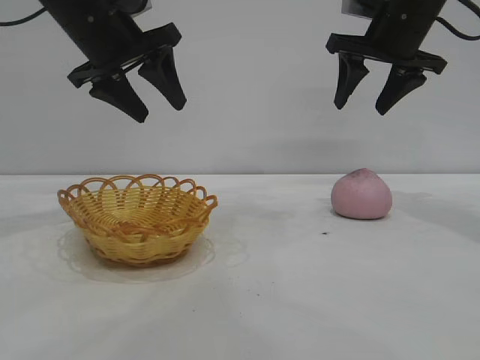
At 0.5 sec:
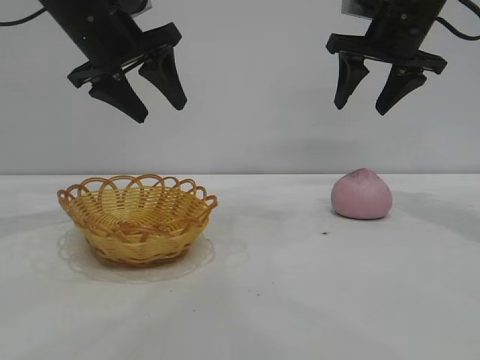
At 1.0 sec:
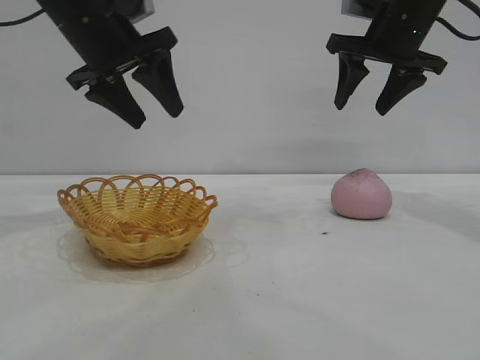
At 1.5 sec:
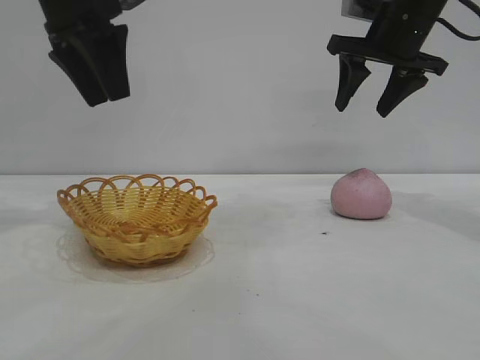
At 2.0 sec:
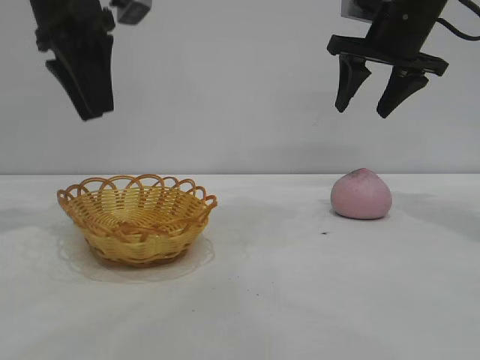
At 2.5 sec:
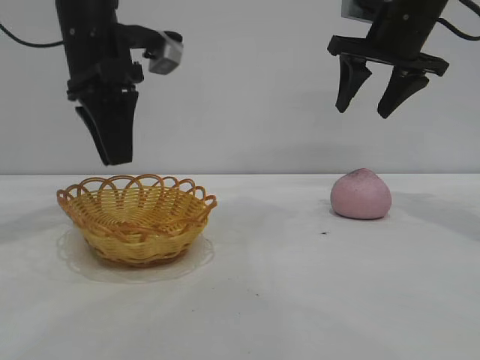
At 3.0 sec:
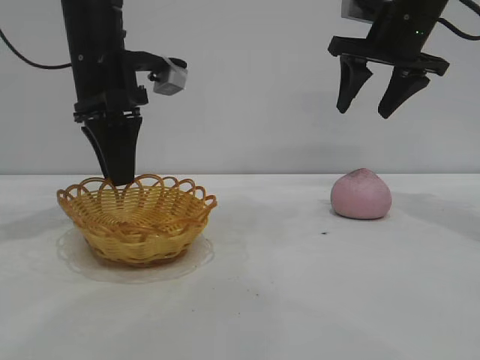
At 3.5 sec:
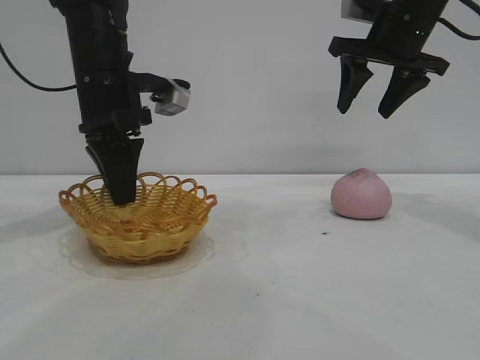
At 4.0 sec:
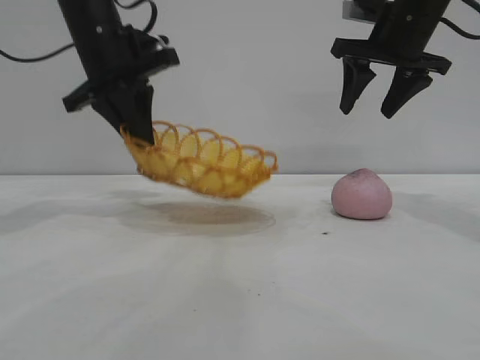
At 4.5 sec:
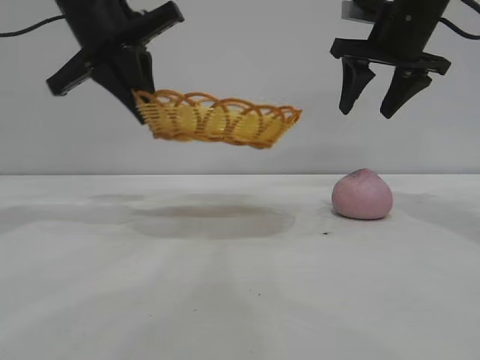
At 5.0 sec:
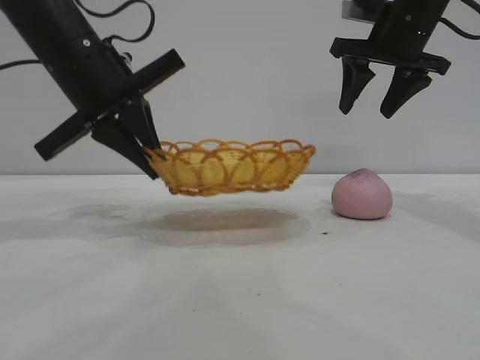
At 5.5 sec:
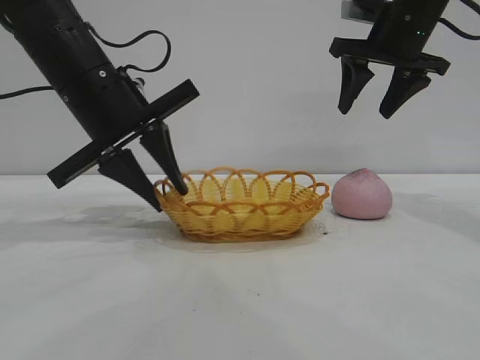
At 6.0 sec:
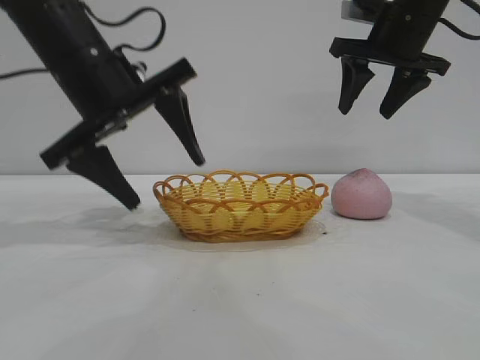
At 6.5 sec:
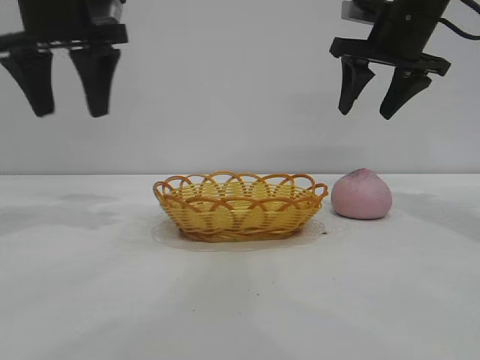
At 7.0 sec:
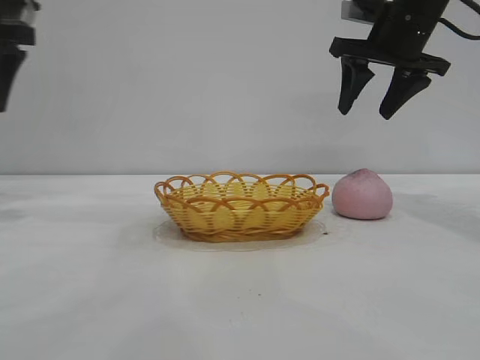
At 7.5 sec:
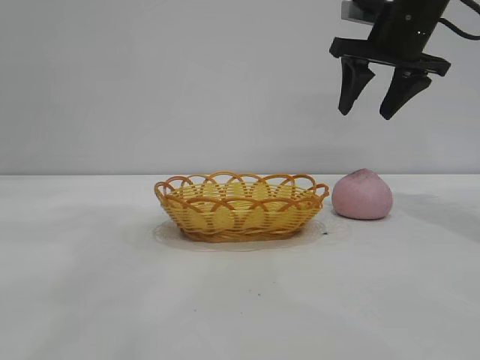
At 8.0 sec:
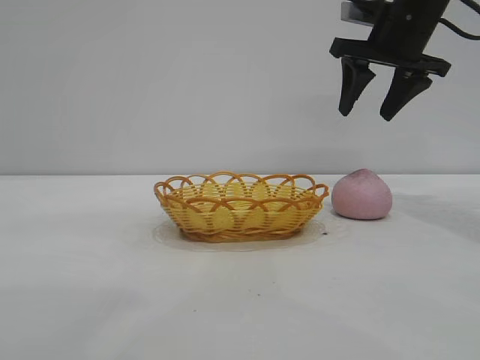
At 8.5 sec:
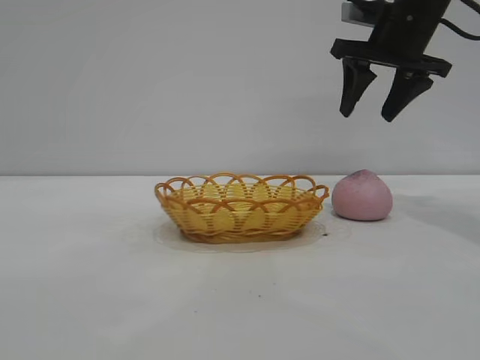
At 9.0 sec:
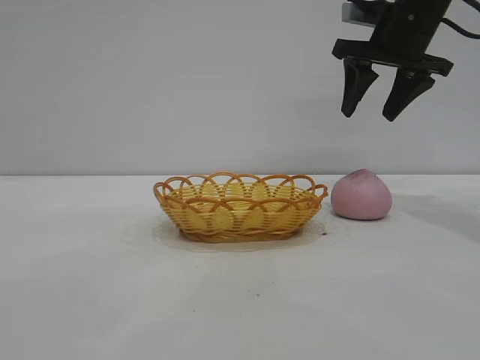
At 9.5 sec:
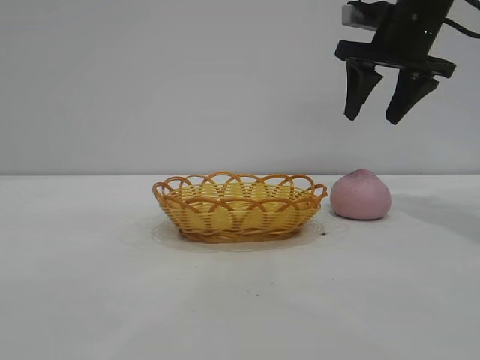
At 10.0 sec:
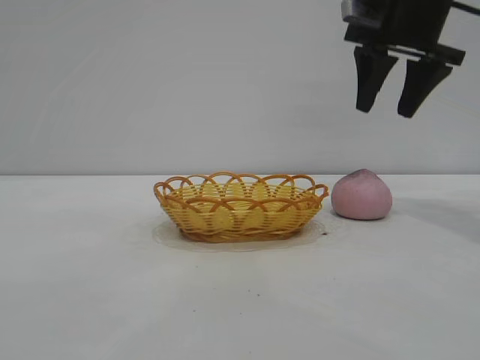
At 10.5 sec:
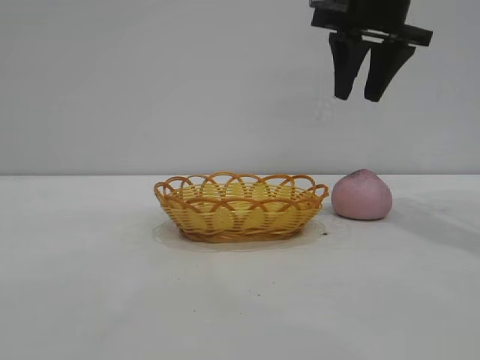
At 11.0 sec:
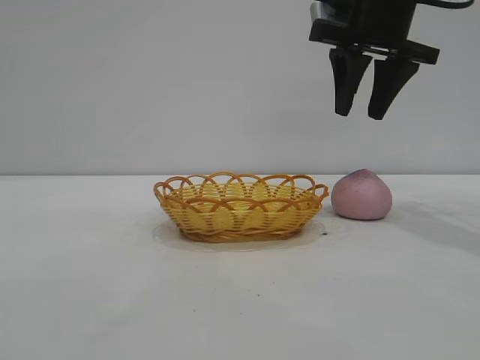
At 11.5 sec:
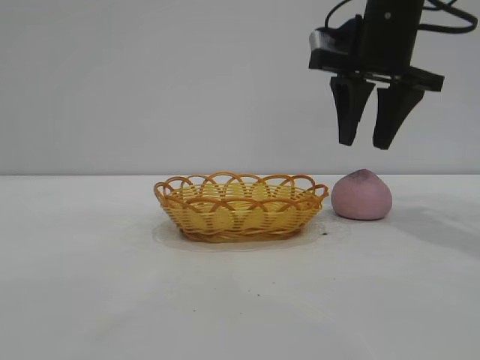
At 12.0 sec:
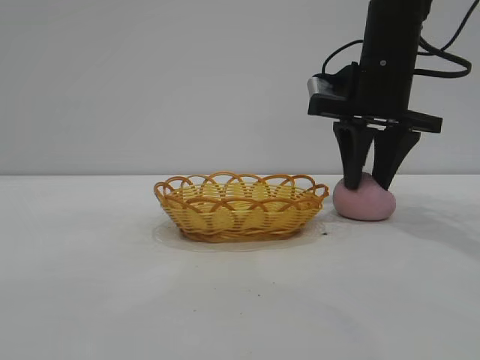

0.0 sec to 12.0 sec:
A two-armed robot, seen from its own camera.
Task of the whole recording: pick up the peach and put it into the basket.
Step, 0.0 sec to 6.0 sec: Move the basket to the center of view.

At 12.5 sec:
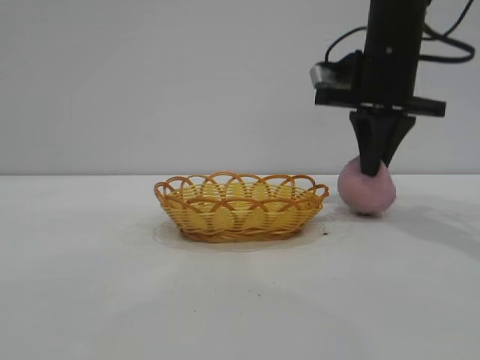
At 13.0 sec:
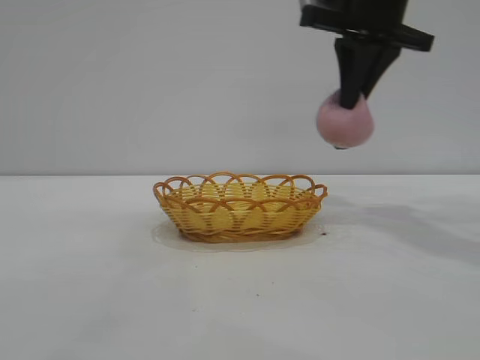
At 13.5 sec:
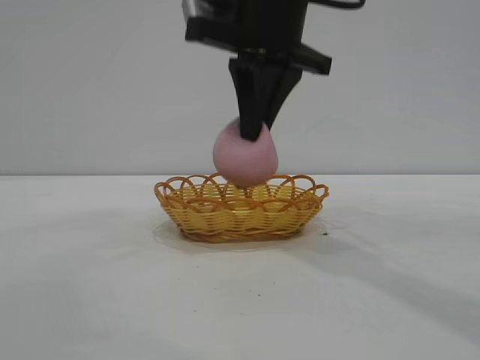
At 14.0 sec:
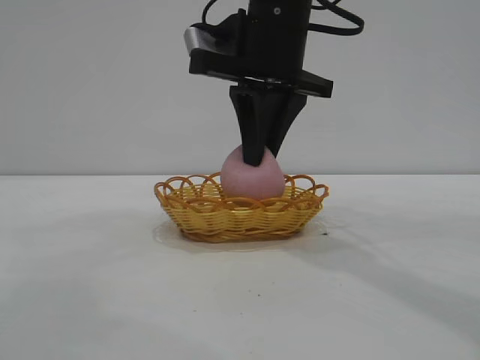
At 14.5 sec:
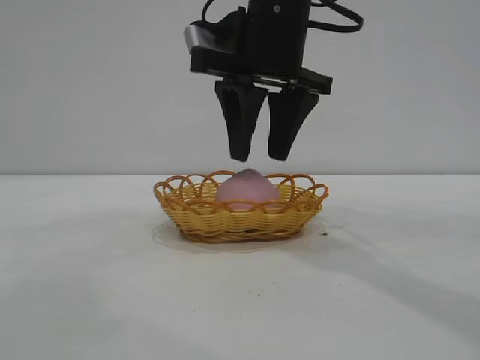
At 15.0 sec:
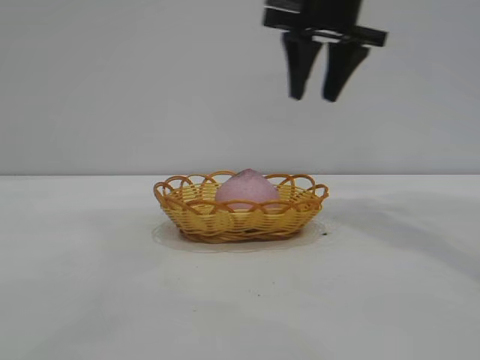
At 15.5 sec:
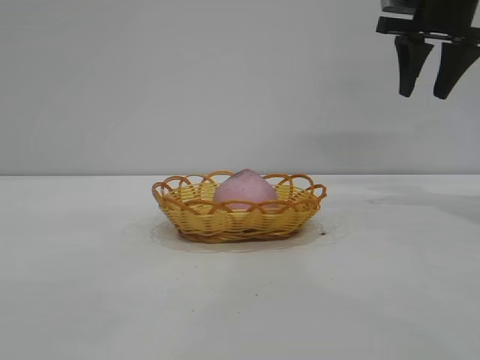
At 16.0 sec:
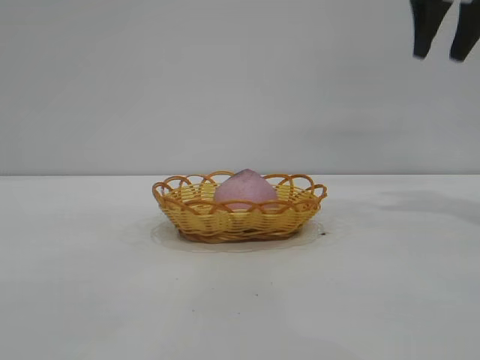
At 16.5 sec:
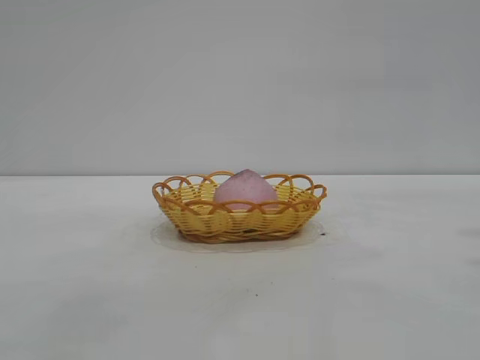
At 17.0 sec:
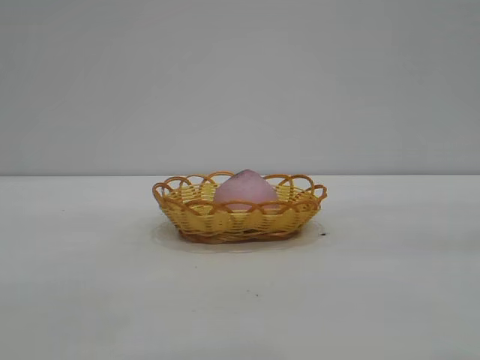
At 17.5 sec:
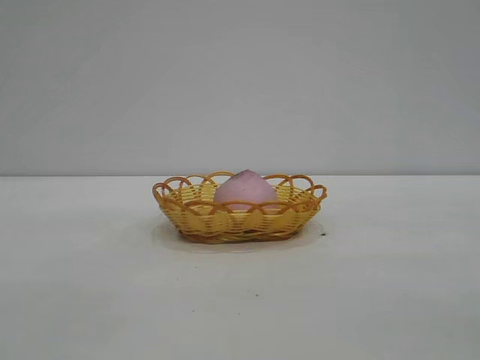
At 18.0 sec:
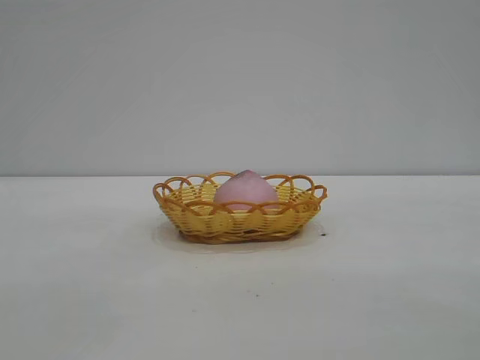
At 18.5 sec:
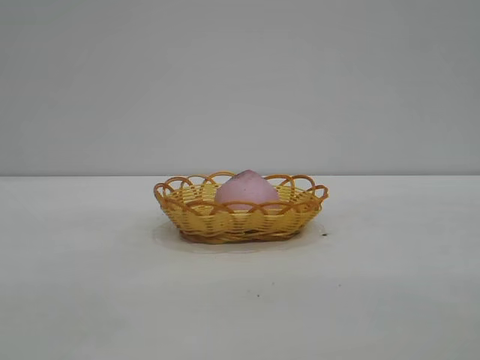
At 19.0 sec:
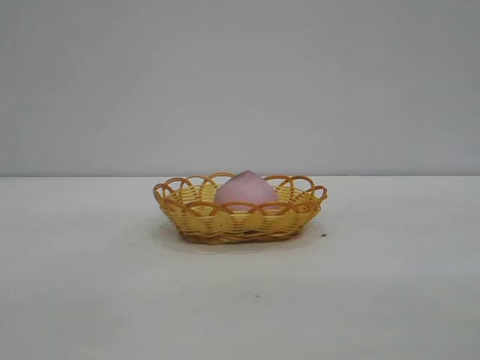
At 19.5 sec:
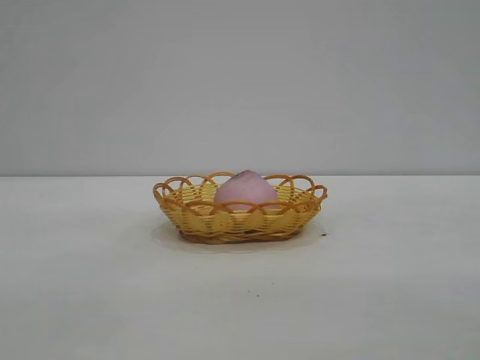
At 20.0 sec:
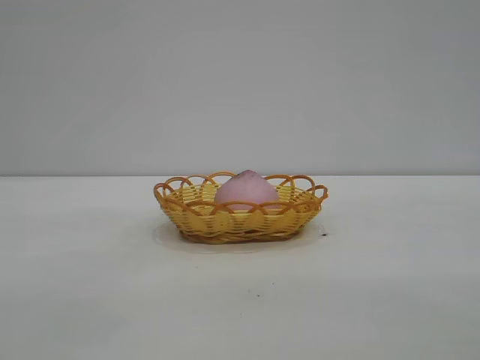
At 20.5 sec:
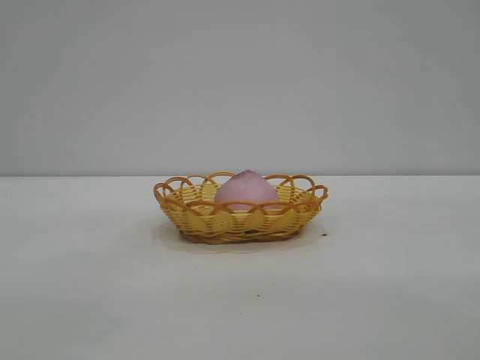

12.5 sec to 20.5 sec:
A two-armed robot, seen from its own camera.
Task of the whole recording: pick up the peach and put it into the basket.
Step, 13.0 sec to 14.5 sec: place the peach into the basket.

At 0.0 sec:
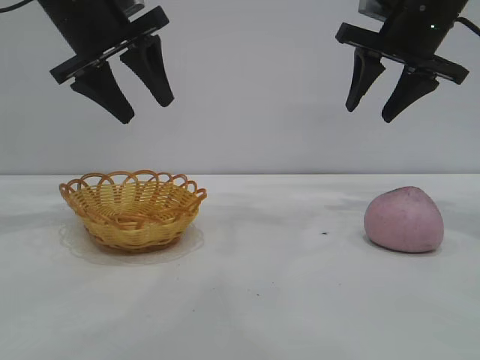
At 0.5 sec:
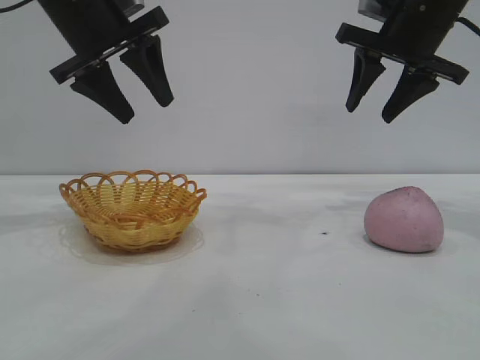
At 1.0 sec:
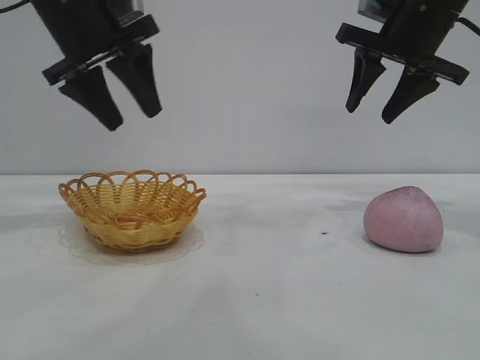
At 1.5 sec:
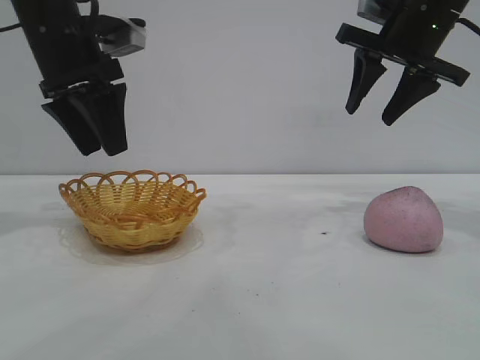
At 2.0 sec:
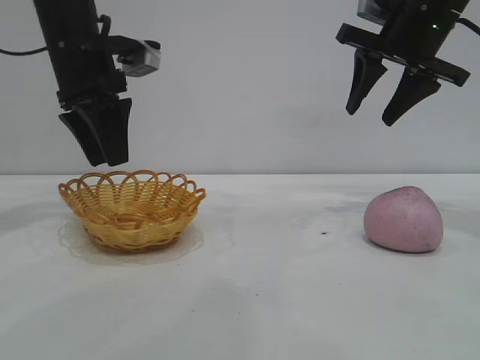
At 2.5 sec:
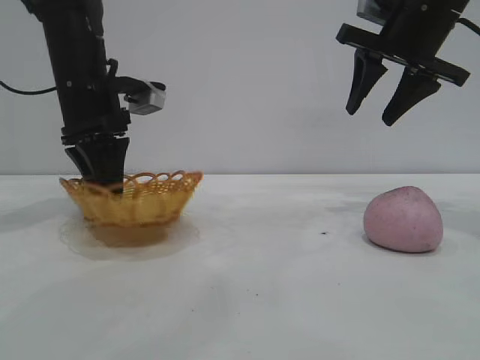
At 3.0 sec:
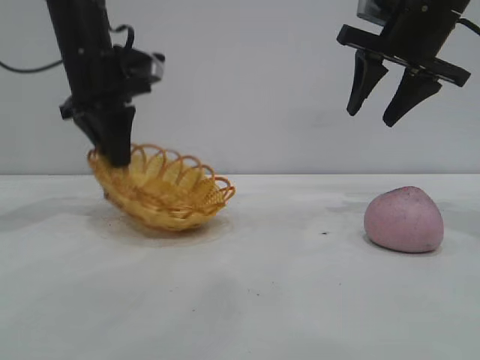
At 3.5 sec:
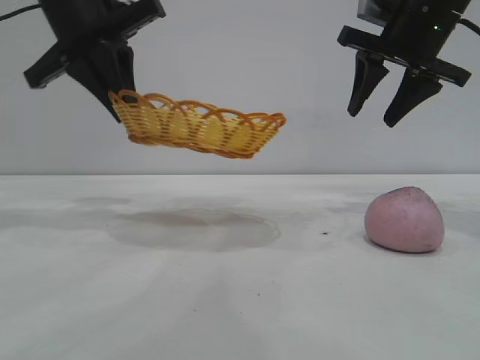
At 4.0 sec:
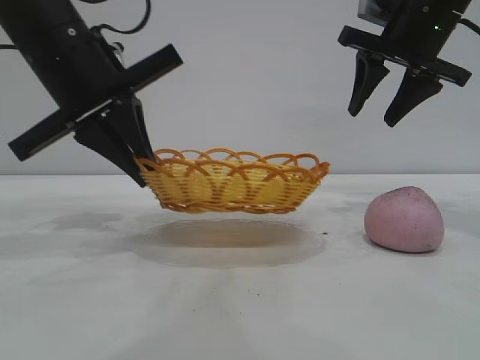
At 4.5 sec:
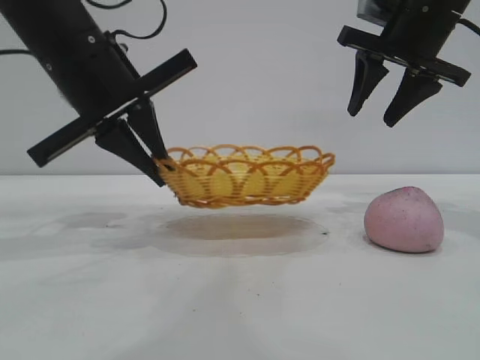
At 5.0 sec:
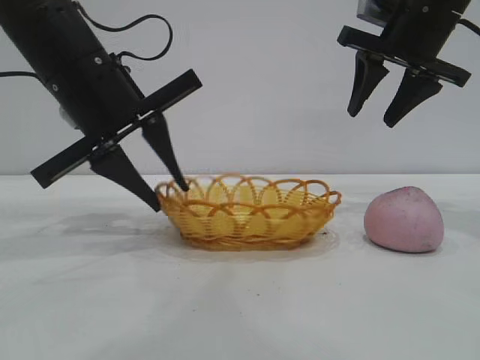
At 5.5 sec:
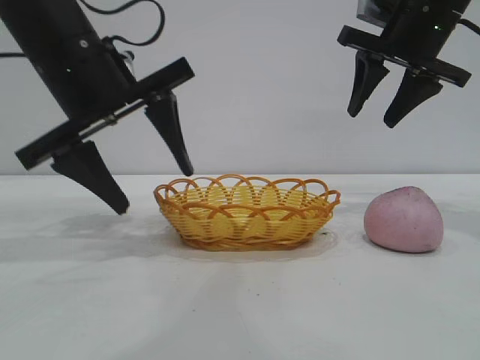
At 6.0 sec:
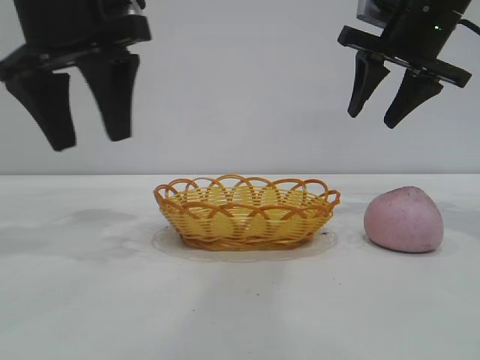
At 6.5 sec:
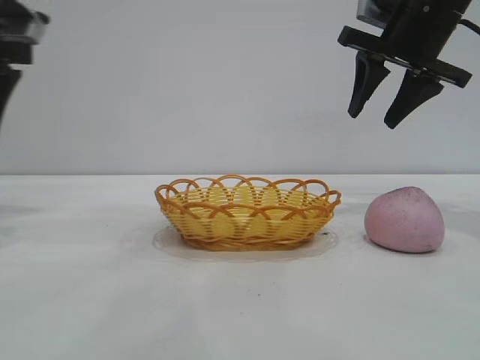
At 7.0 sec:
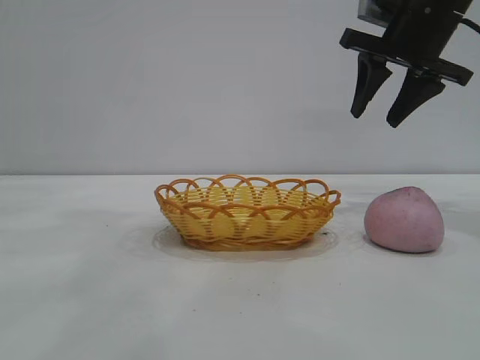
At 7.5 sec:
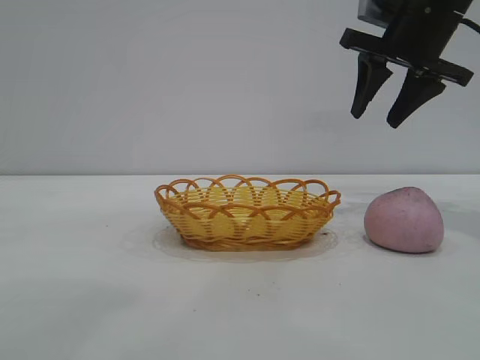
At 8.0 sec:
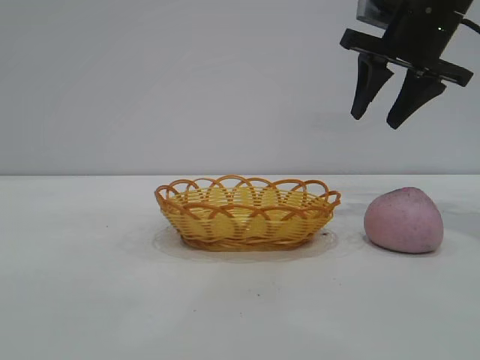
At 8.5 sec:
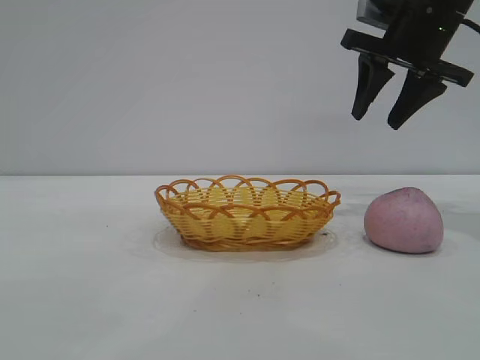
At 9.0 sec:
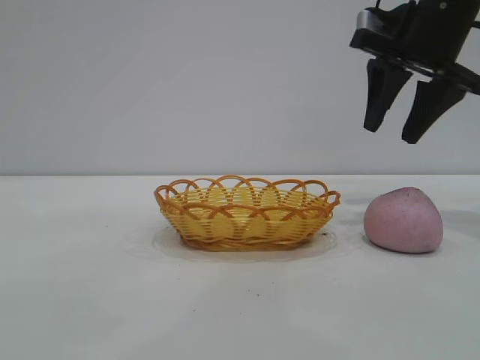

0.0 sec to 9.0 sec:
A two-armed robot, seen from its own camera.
Task of the whole recording: pick up the peach and put it into the basket.
Step, 0.0 sec to 5.5 sec: Move the basket to the center of view.
